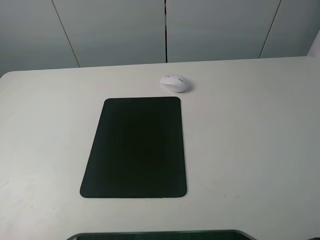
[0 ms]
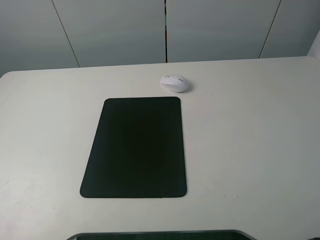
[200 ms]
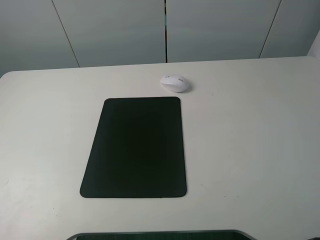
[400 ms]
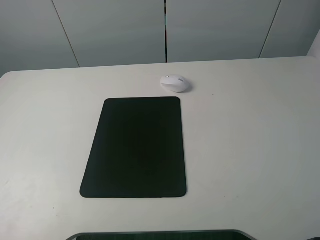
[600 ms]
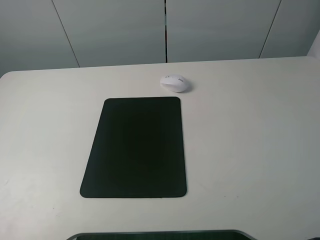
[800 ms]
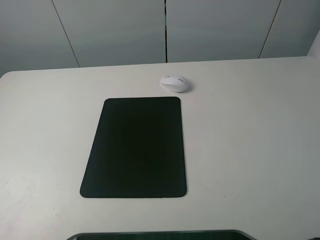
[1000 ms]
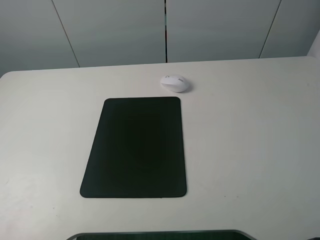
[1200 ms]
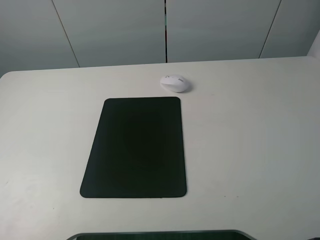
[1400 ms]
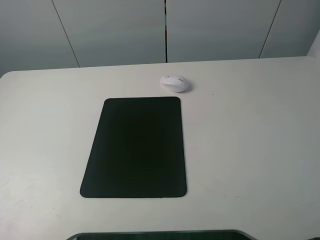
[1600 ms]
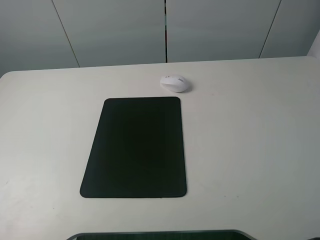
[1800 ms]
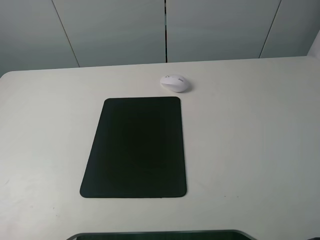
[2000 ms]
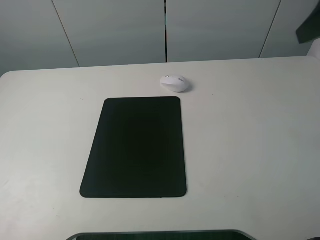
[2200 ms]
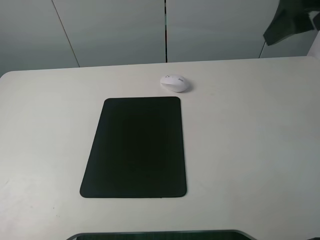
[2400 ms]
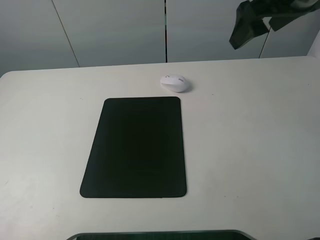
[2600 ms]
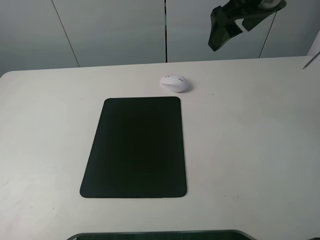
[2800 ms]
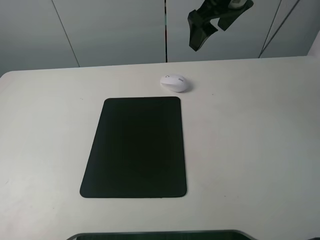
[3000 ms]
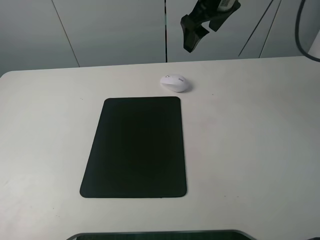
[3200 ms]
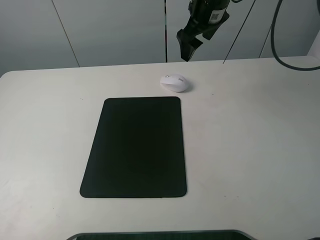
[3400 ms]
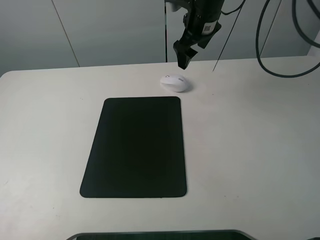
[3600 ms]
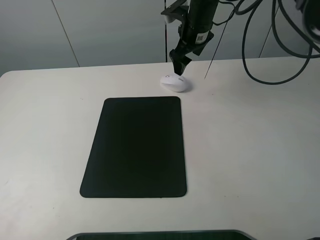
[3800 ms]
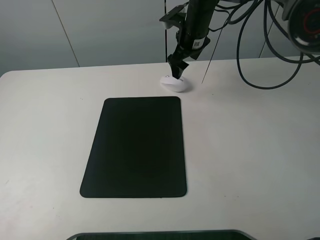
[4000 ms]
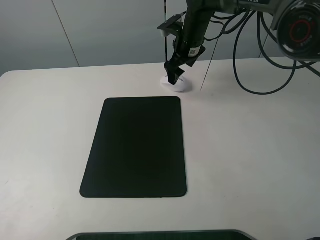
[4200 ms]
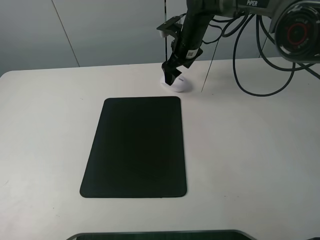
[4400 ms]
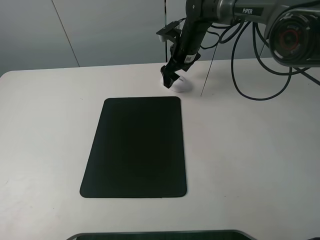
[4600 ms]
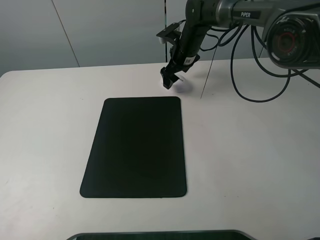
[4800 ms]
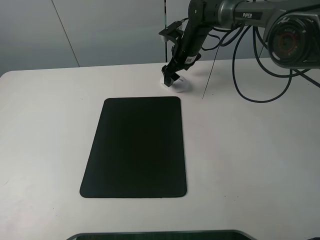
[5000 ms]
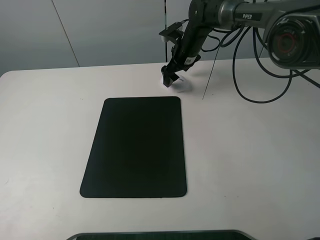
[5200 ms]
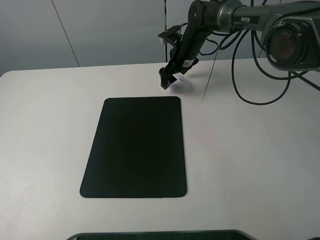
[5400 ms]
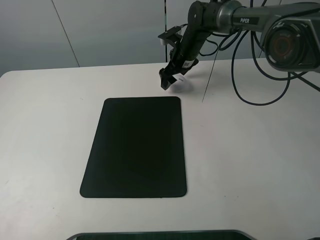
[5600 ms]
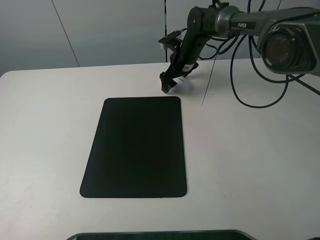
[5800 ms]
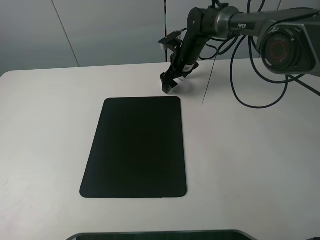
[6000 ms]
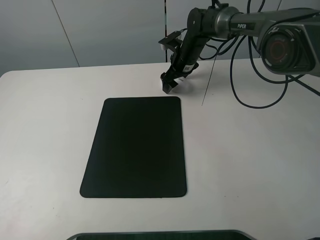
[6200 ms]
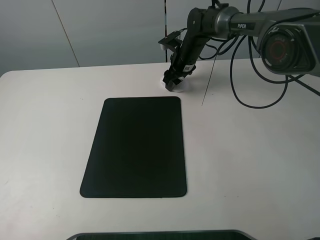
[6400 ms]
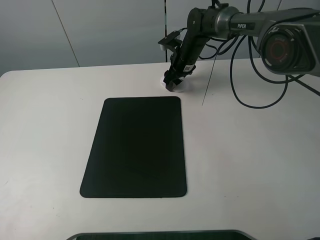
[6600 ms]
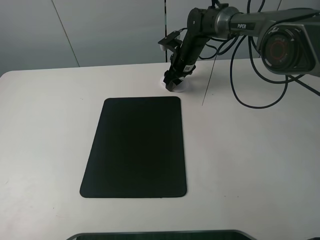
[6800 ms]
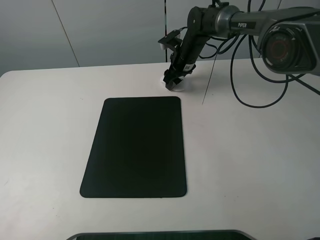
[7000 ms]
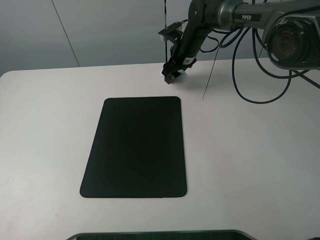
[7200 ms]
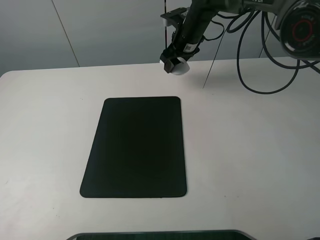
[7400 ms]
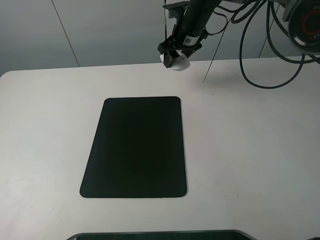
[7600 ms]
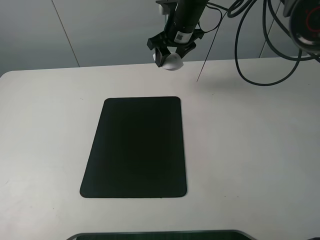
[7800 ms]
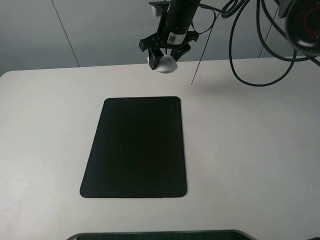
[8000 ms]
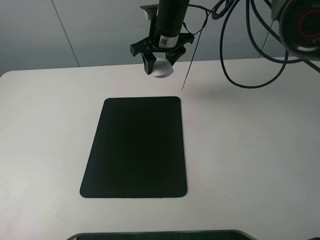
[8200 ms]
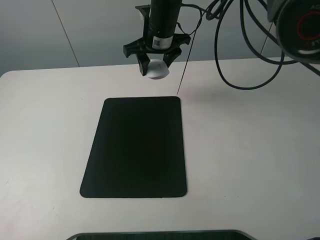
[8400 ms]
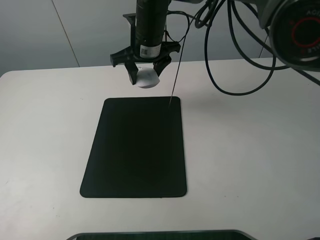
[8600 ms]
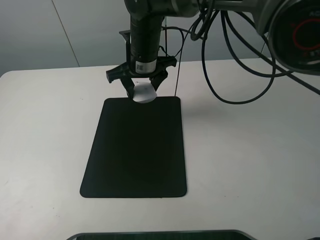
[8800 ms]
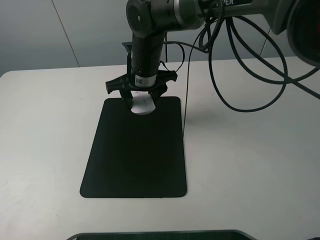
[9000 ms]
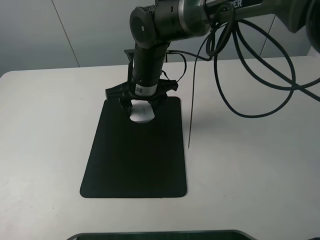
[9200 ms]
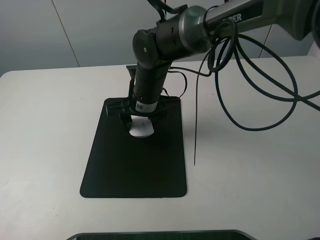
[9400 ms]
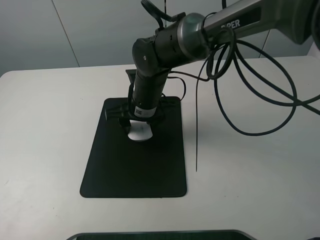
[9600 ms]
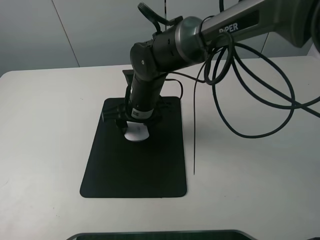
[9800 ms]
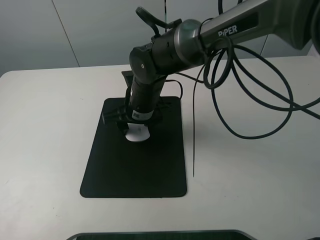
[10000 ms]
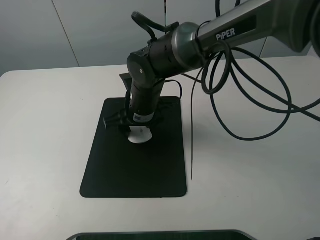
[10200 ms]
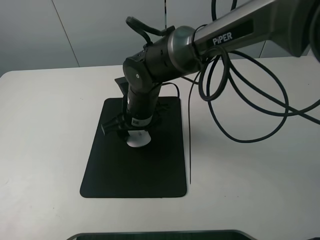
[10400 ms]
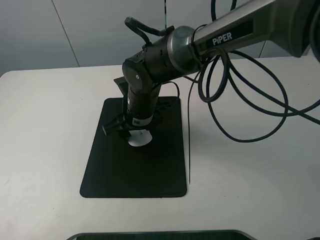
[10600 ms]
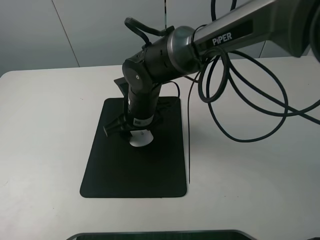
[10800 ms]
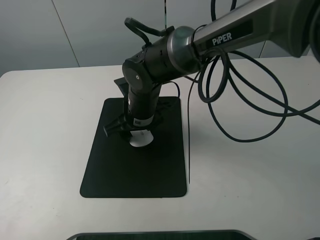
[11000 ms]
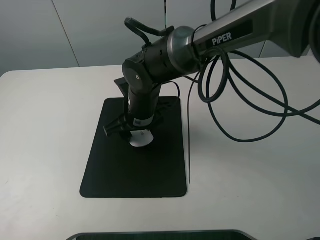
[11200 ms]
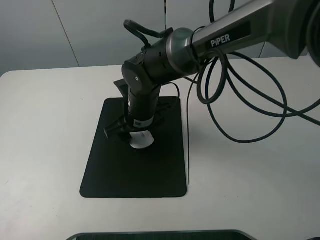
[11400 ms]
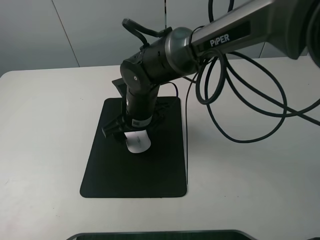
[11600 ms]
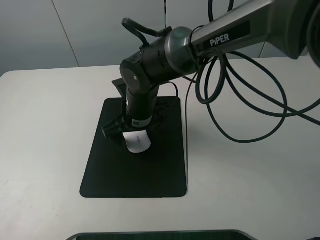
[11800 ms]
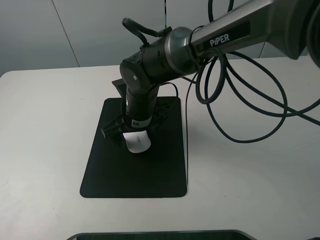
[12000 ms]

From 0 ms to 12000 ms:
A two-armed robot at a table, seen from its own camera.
Step, from 0 ms to 6600 ms: Grasp the mouse with the right gripper.
From 1600 ms to 3000 ms: The right gripper goes roughly 35 cm forward and to the left.
From 3000 ms to 4400 ms: The right gripper shifts about 20 cm downward and forward.
From 4400 ms to 6000 ms: The right gripper shifts approximately 5 cm downward.
From 6000 ms to 7600 ms: The right gripper shifts roughly 10 cm upward, and closes.
From 7600 ms to 9000 ms: The right gripper shifts roughly 15 cm backward and to the left.
From 9000 ms to 10400 ms: The right gripper heads backward and downward, covering approximately 10 cm.
From 10400 ms to 12000 ms: The right gripper opens.

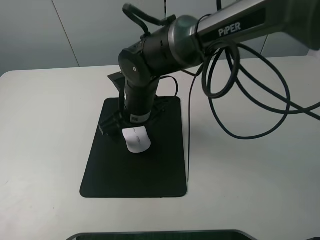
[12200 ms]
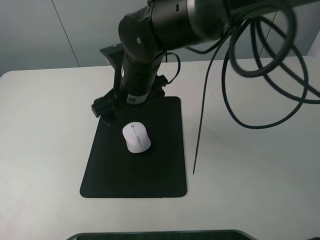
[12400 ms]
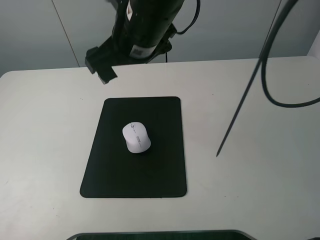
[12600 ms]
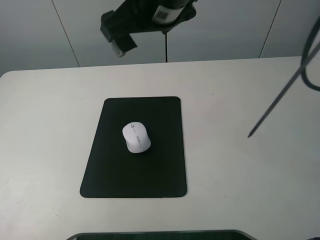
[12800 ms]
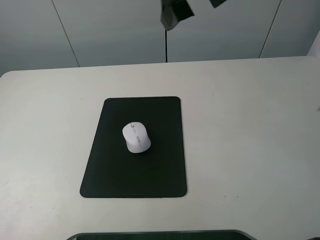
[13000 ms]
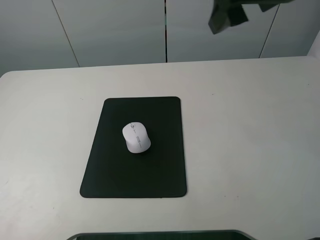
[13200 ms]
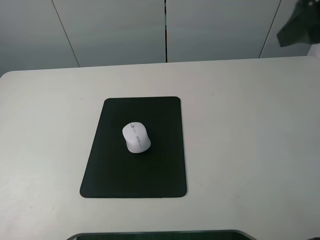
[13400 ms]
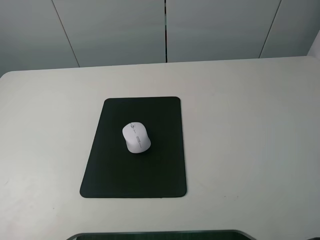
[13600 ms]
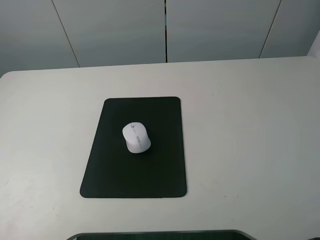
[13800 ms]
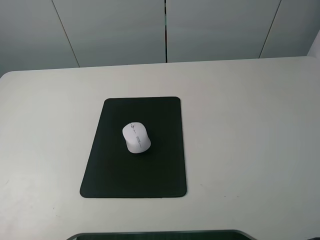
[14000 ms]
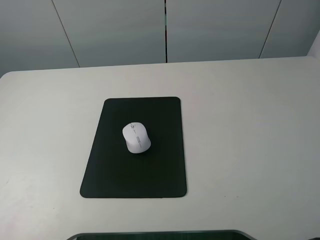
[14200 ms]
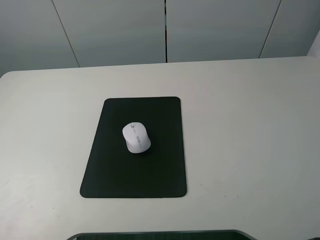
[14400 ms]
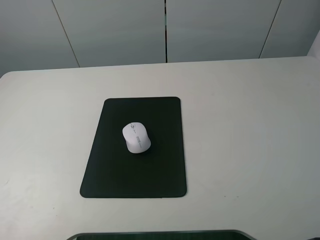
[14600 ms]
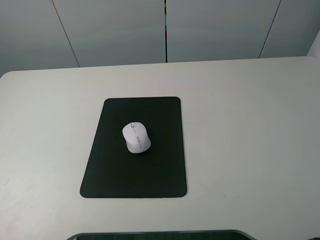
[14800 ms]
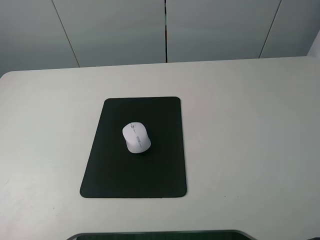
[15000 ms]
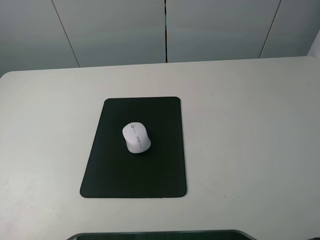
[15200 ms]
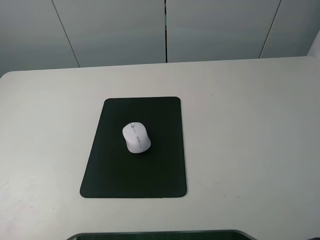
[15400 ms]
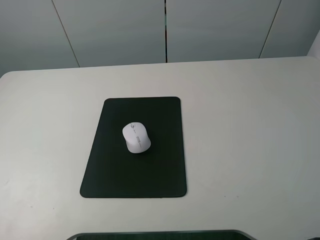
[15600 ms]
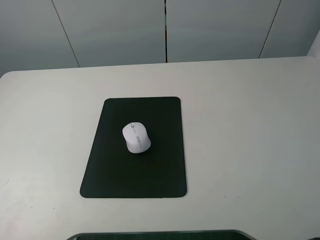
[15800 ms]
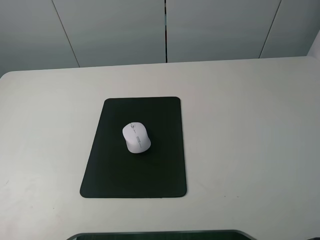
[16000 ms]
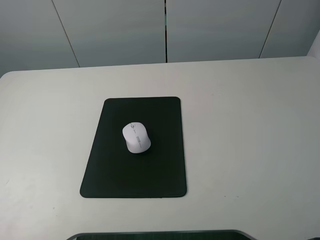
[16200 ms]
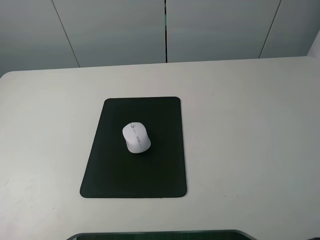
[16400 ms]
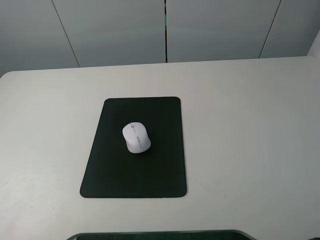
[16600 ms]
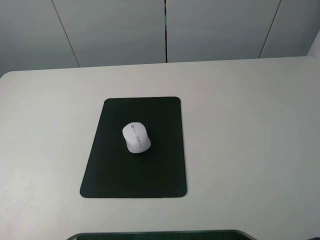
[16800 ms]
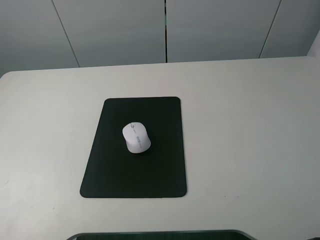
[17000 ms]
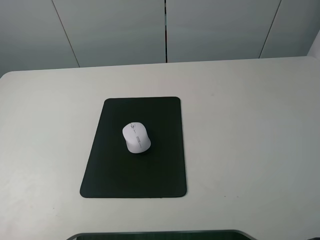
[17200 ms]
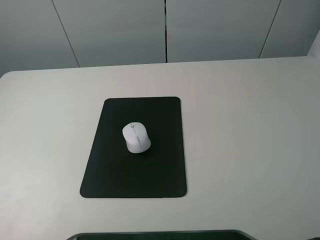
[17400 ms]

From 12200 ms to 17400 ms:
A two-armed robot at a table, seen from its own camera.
From 12200 ms to 14000 ms: The right gripper is displaced to the right, backward and upward by some 50 cm.
From 15600 ms to 17400 ms: Both grippers stay put.
